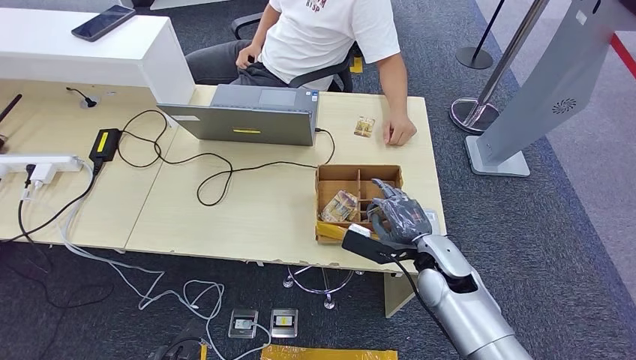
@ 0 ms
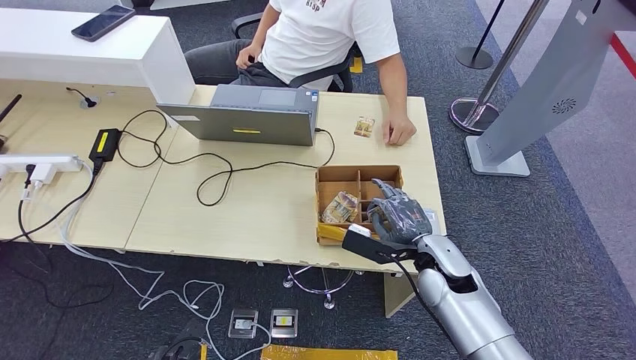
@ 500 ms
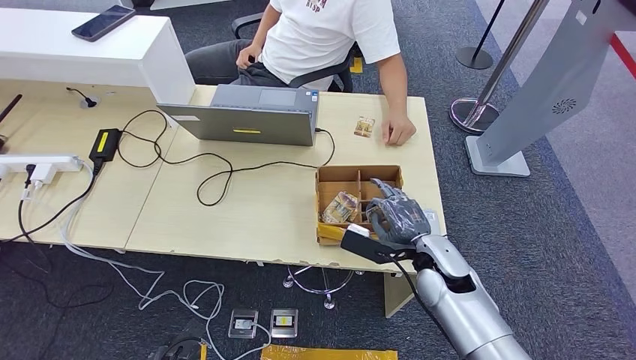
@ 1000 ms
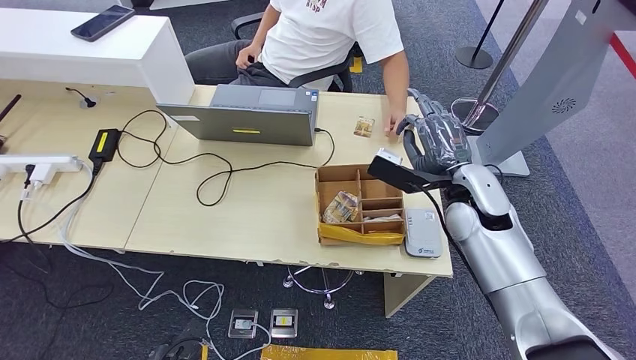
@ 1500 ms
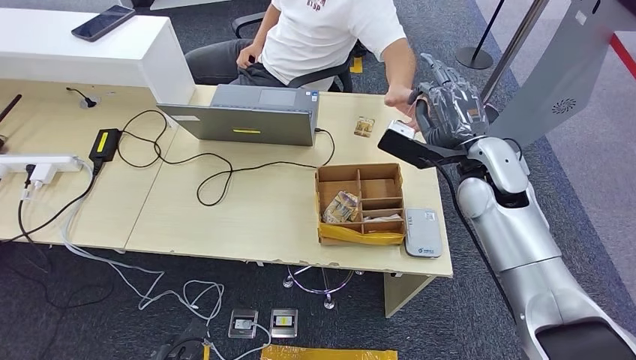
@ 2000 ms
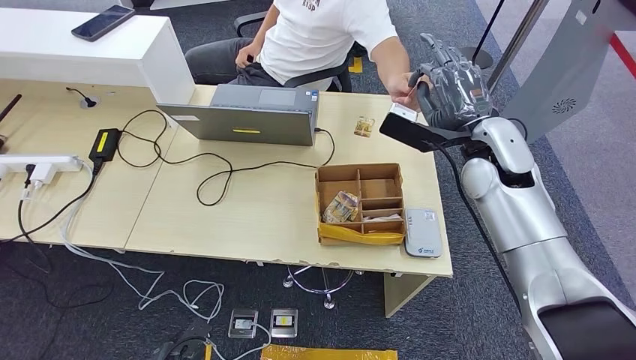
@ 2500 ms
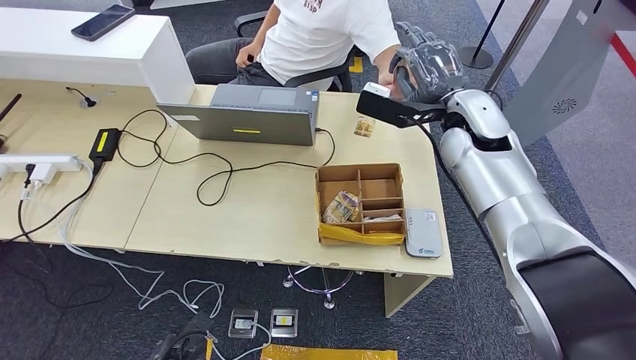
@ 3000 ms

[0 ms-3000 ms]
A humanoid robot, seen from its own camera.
Step, 2000 ms to 2500 ms: Hand the room key to the person.
0 ms to 1500 ms: The right hand goes some 15 cm upward and forward.
1500 ms to 3000 ms: The right hand goes about 10 cm upward and forward.
